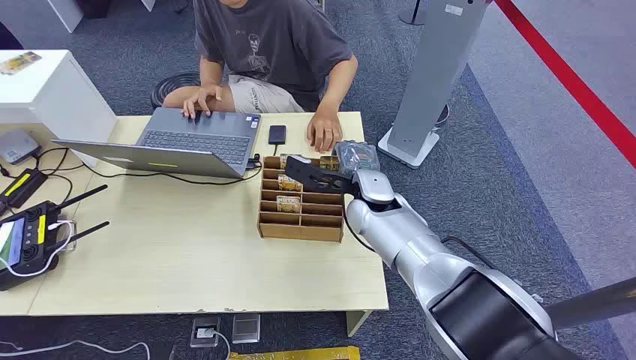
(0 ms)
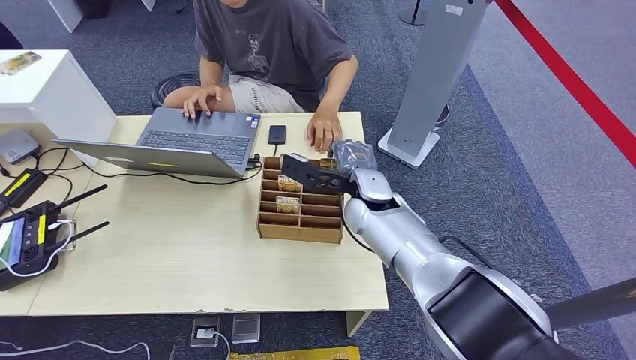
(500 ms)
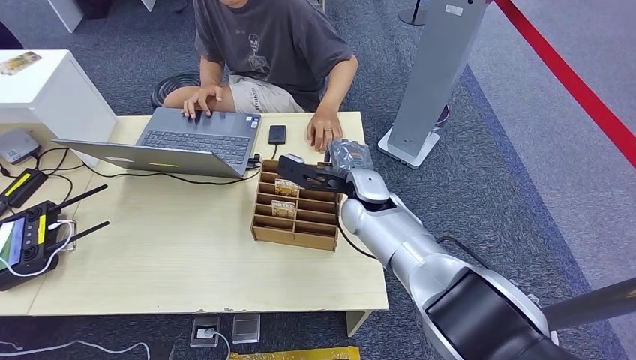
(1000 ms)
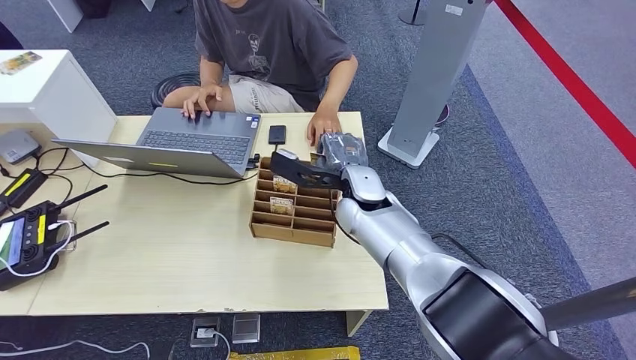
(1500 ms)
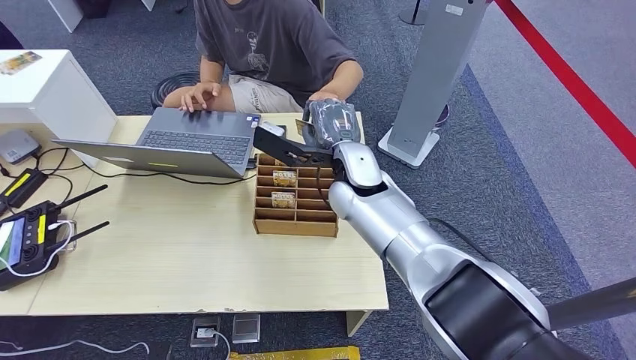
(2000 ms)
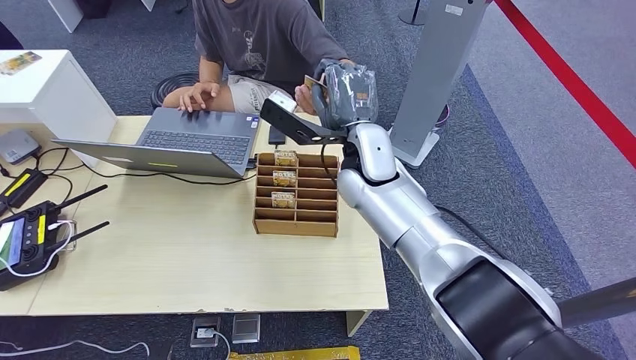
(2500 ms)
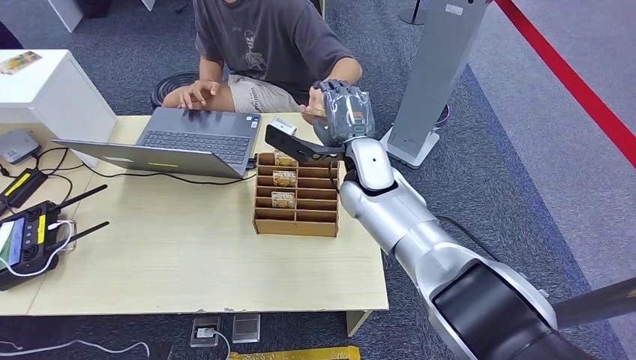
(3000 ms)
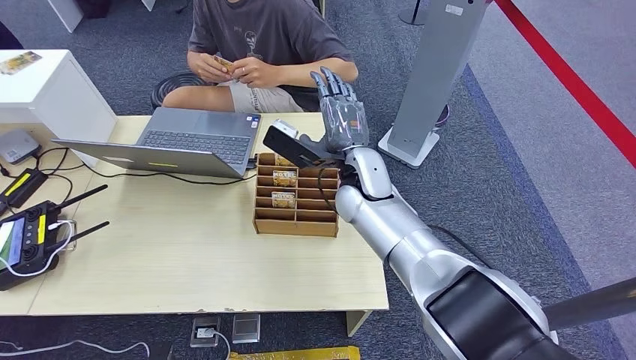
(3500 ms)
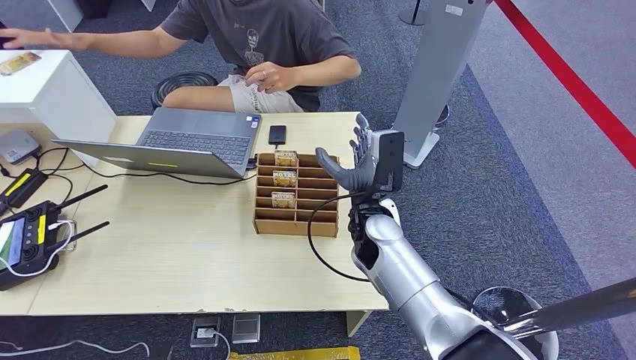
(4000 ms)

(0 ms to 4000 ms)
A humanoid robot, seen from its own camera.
Step, 0 ms - 2000 ms: Pick up the key card from the card box.
Step, 2500 ms - 4000 ms: Hand the key card to the target.
2000 ms - 4000 ms: The right hand heads downward and backward, covering some 10 cm.
